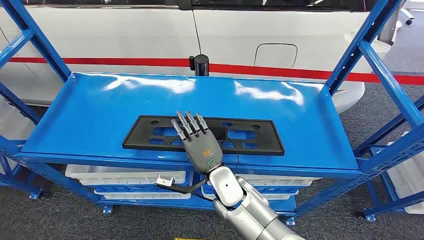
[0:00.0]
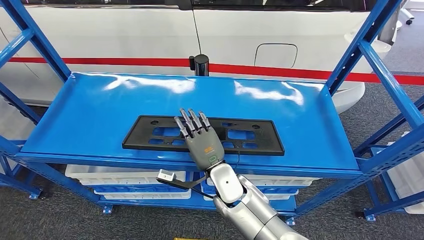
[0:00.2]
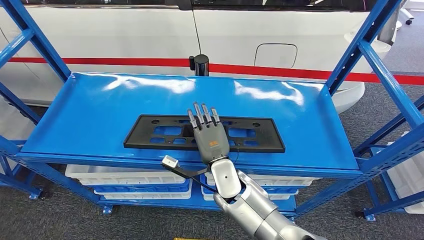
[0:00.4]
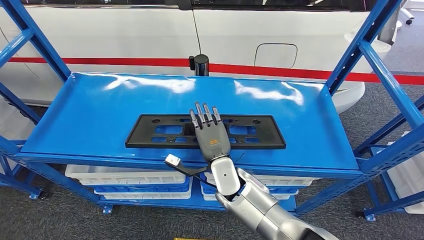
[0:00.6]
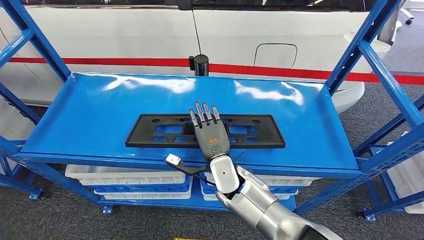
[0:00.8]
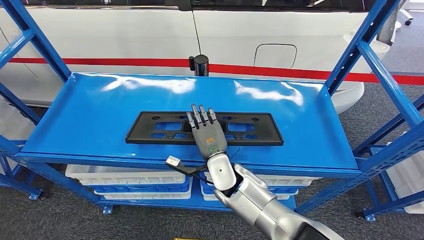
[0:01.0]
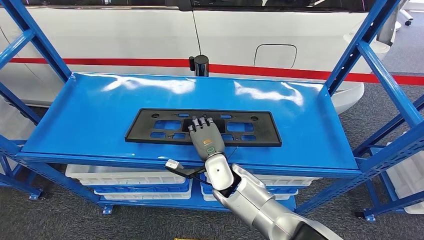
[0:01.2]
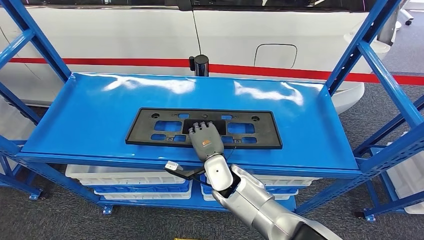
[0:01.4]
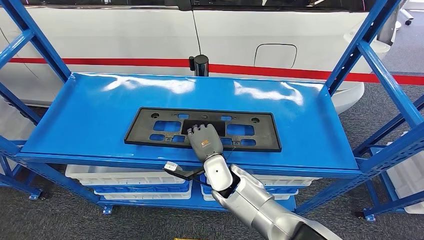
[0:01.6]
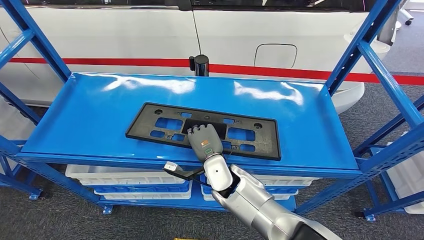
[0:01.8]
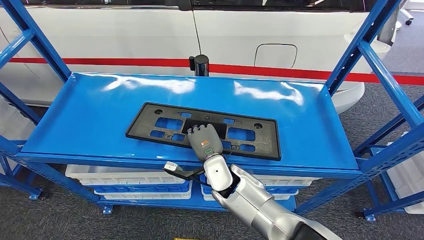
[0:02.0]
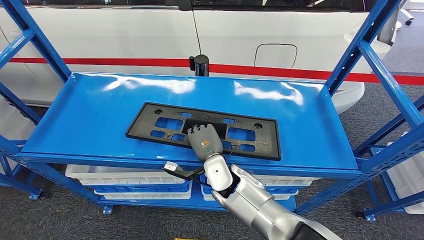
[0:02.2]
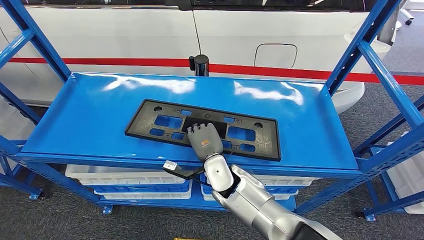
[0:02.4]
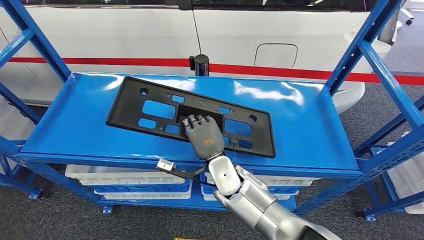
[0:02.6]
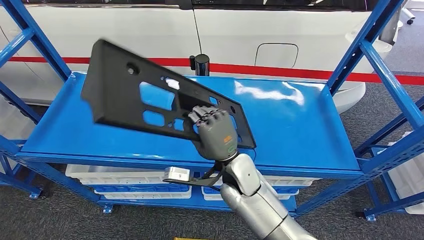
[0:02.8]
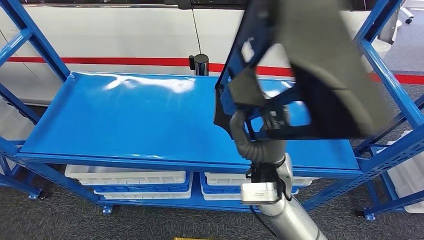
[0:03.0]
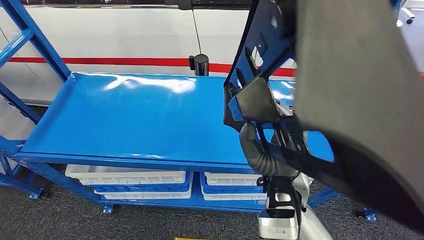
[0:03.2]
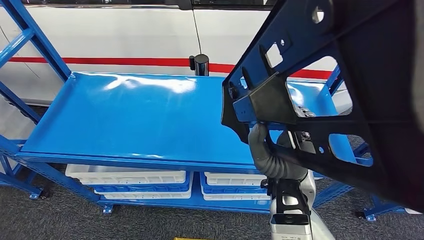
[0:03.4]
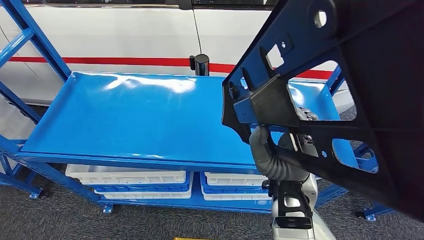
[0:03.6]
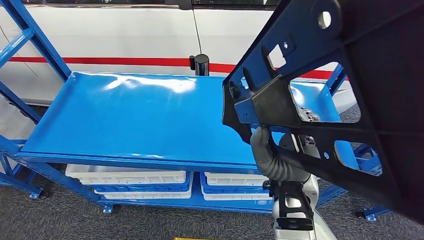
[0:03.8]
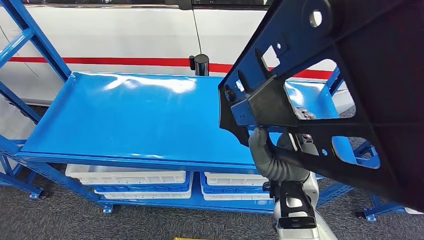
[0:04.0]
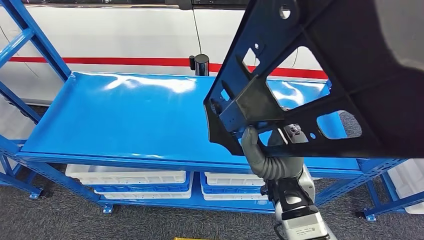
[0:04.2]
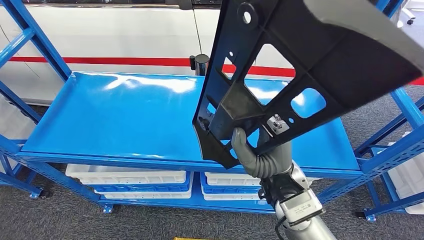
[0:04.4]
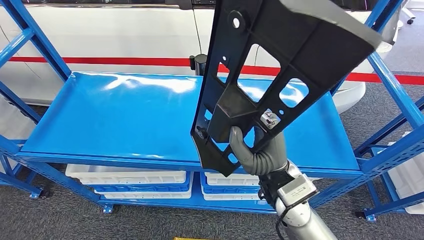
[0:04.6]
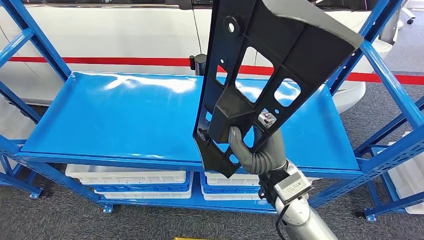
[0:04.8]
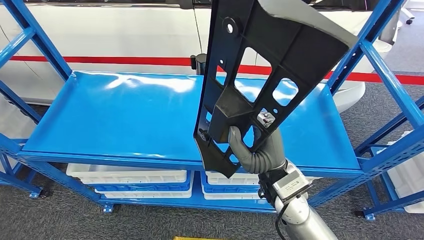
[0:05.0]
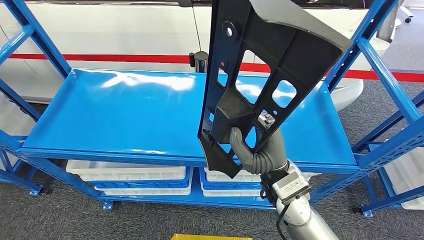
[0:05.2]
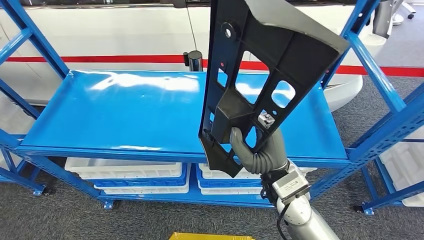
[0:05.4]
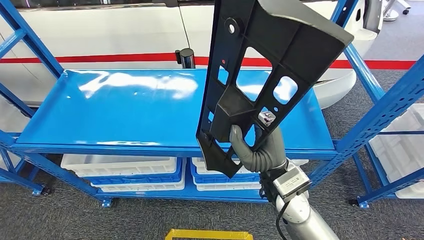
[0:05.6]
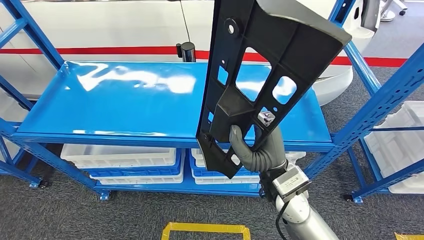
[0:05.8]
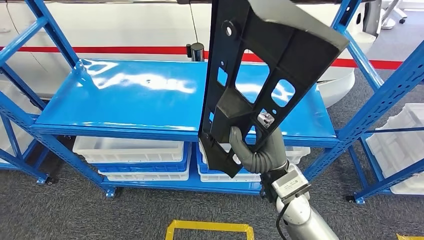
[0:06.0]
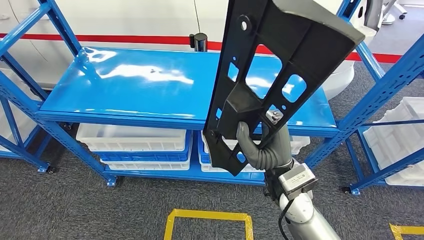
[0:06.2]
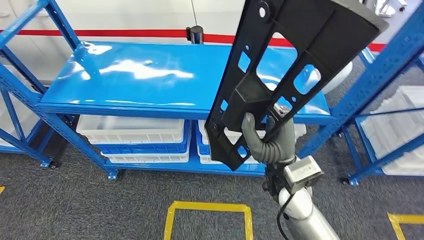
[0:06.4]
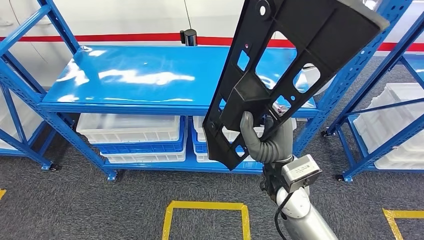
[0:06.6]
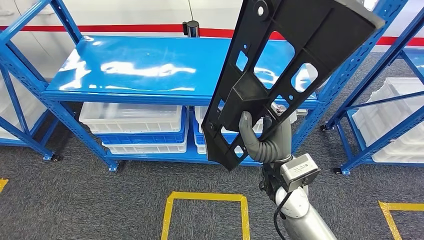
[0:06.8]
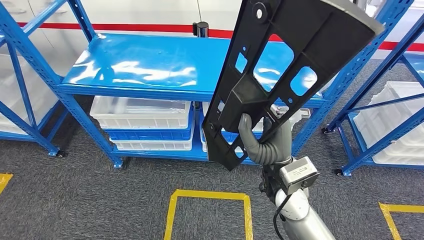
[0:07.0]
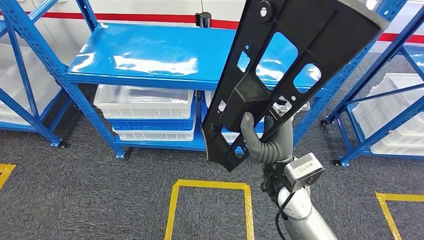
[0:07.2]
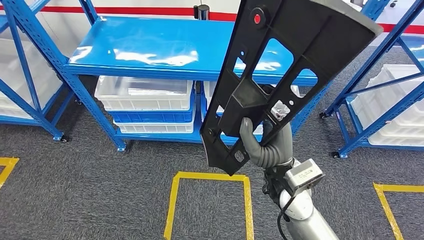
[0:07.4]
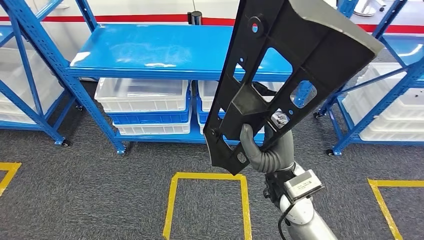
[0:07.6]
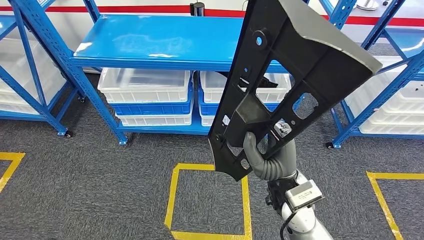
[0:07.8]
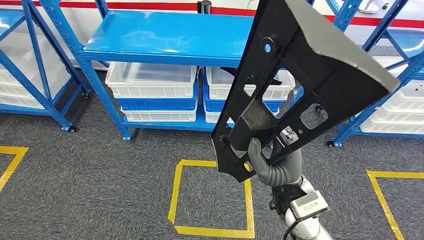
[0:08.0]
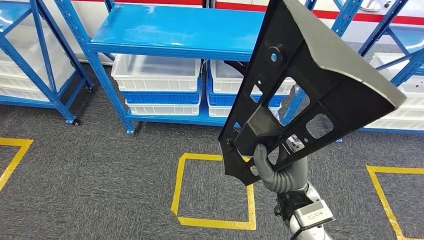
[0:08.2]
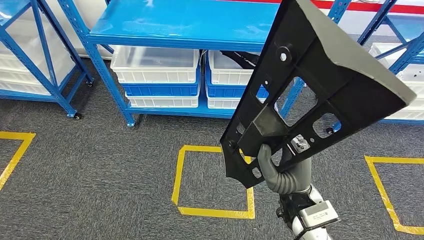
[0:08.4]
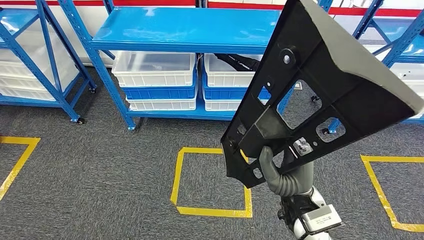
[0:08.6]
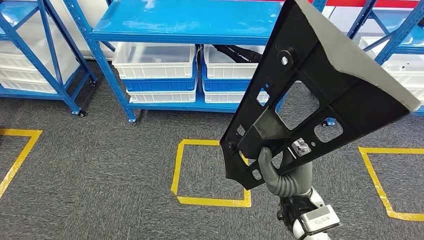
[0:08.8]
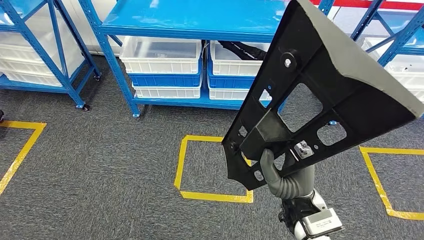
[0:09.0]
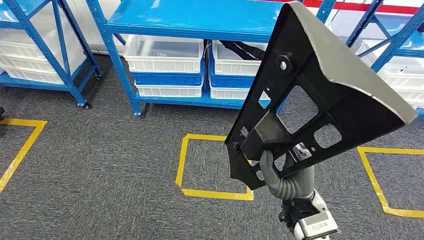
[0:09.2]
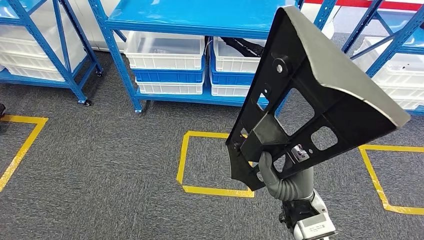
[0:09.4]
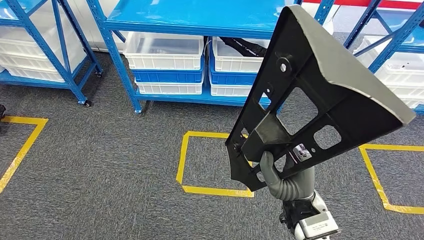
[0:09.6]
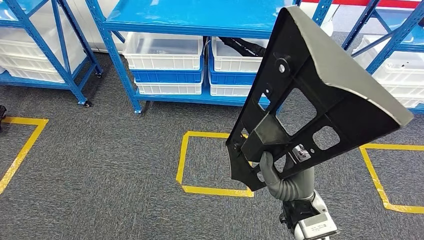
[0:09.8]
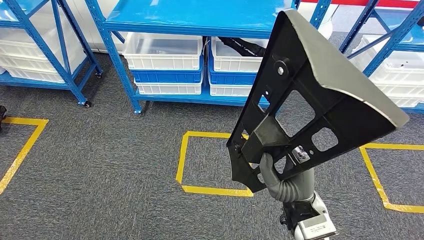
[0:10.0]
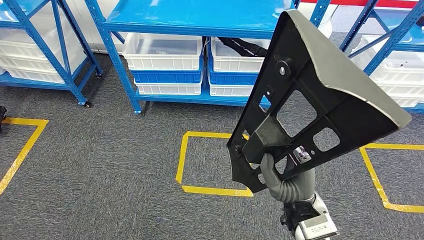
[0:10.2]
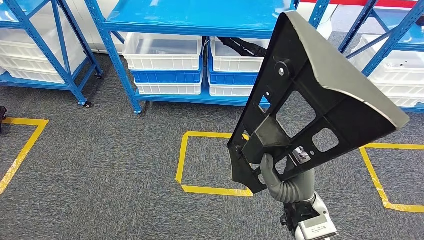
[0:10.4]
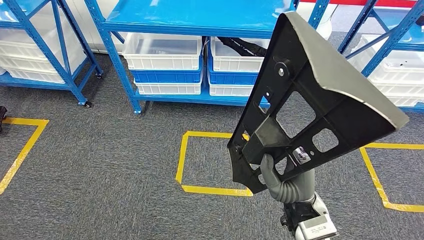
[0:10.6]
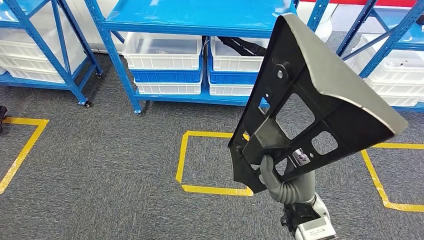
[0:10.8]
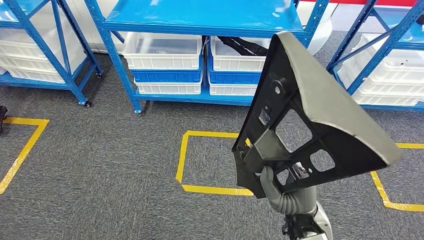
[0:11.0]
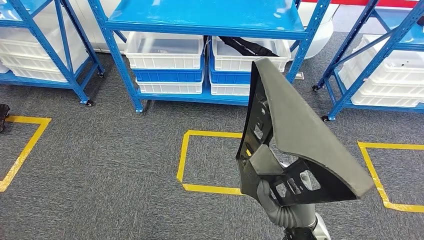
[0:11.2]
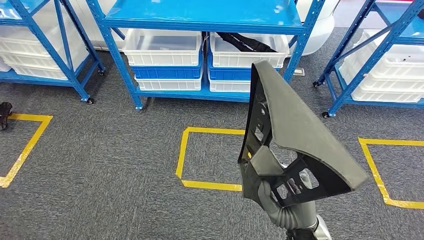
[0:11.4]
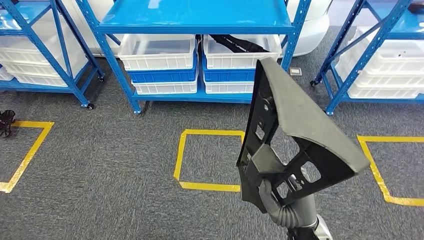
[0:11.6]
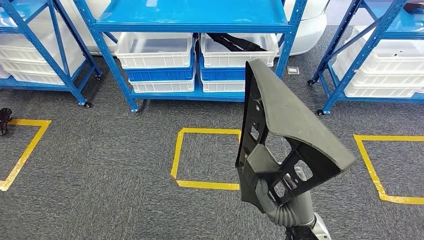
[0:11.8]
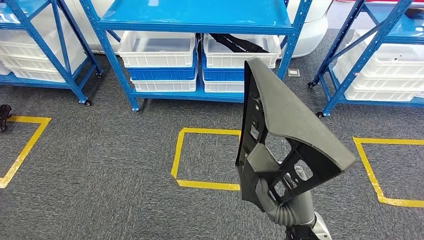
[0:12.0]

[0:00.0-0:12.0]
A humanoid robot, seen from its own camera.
Step, 0:00.0 to 0:08.4: Pick up the large material from the shelf.

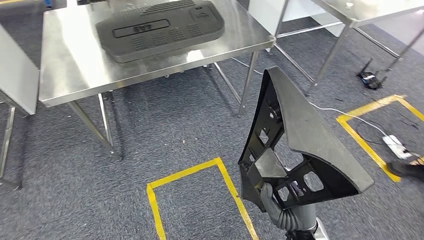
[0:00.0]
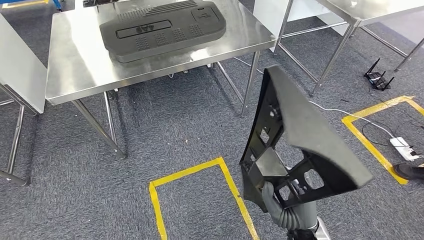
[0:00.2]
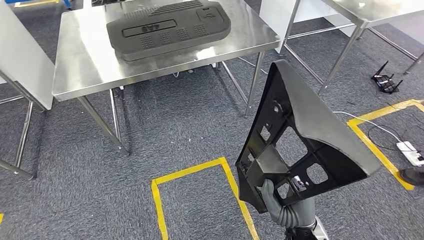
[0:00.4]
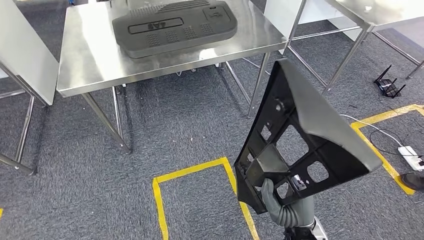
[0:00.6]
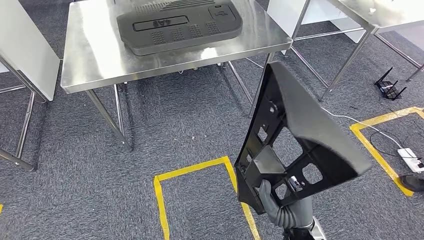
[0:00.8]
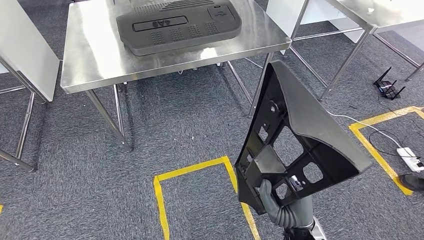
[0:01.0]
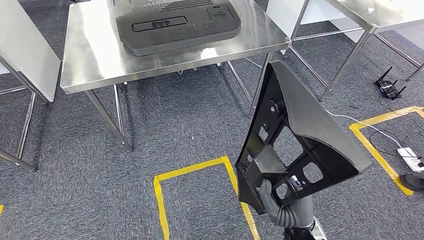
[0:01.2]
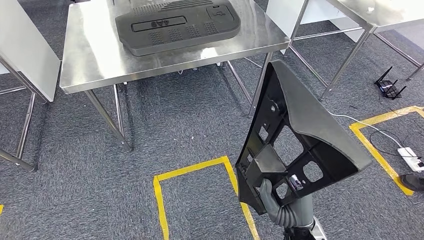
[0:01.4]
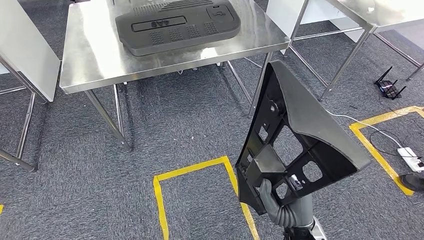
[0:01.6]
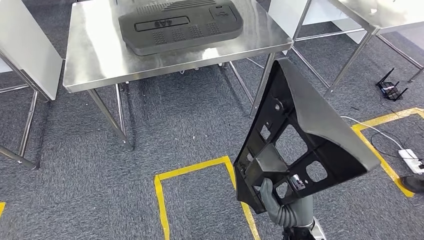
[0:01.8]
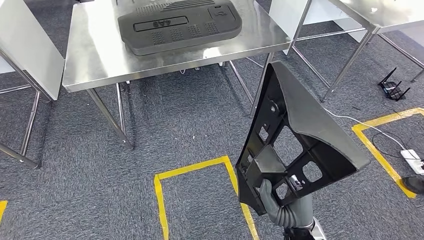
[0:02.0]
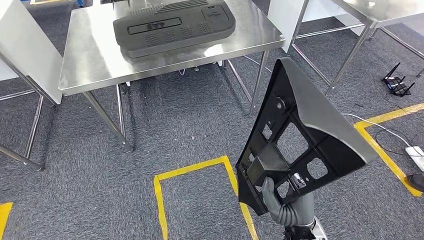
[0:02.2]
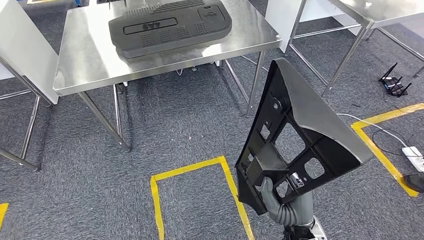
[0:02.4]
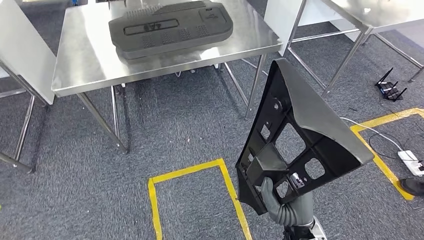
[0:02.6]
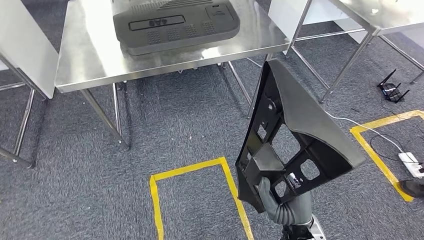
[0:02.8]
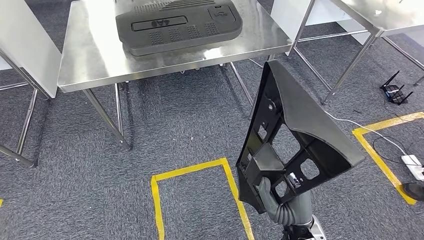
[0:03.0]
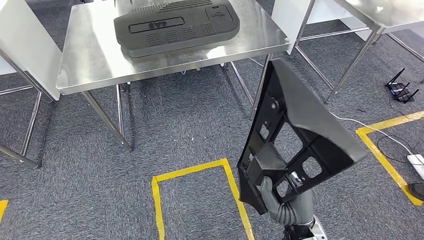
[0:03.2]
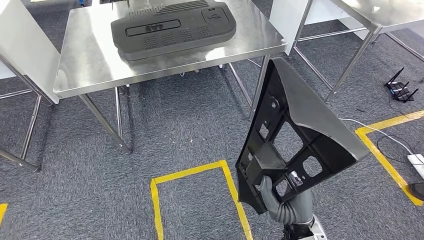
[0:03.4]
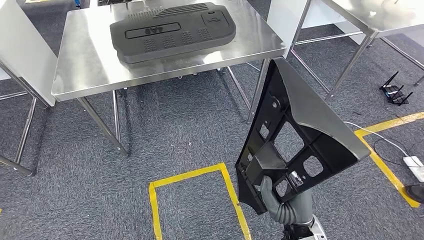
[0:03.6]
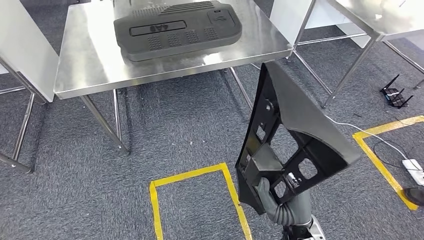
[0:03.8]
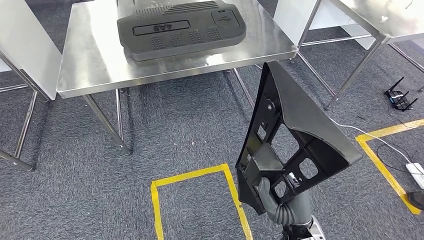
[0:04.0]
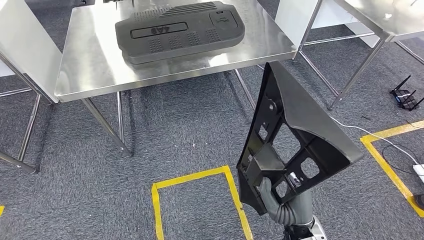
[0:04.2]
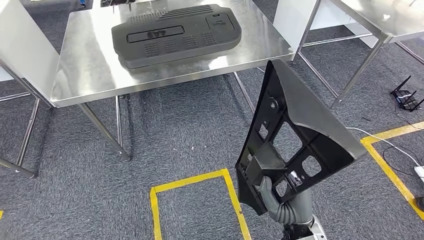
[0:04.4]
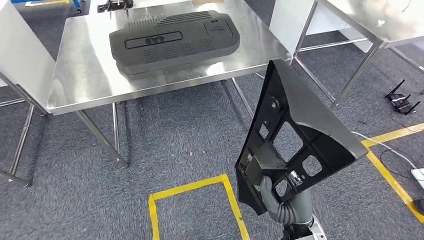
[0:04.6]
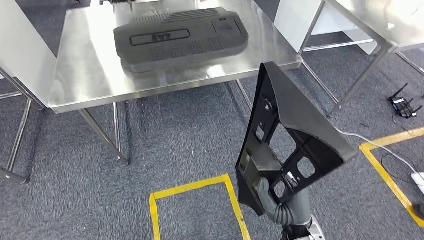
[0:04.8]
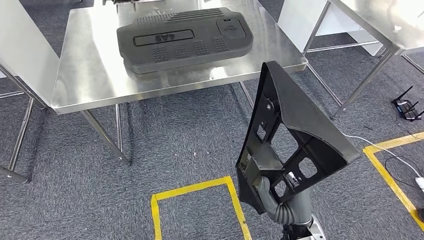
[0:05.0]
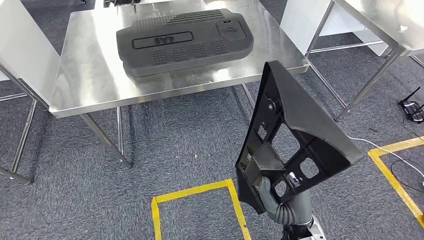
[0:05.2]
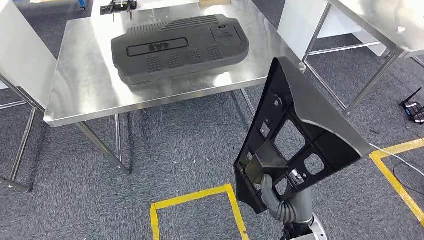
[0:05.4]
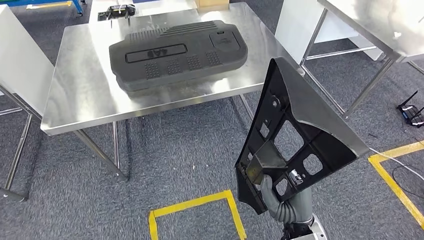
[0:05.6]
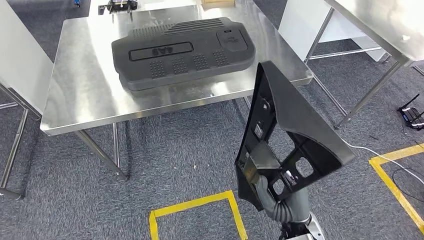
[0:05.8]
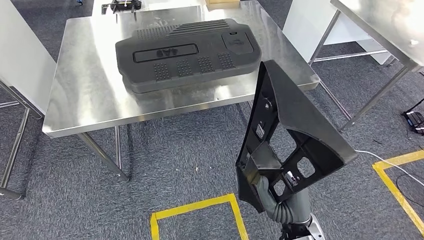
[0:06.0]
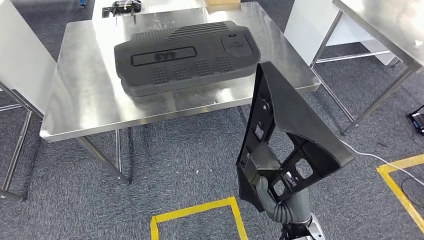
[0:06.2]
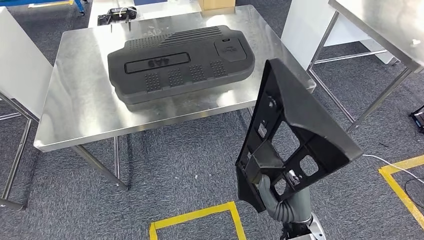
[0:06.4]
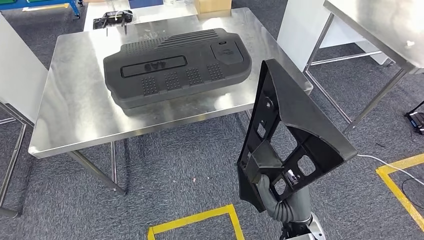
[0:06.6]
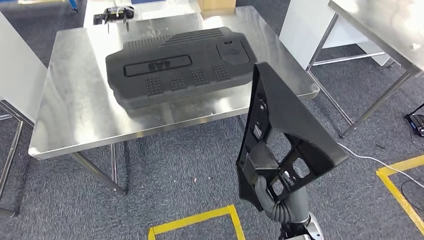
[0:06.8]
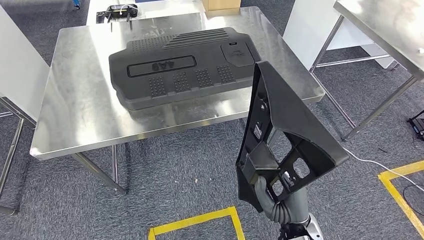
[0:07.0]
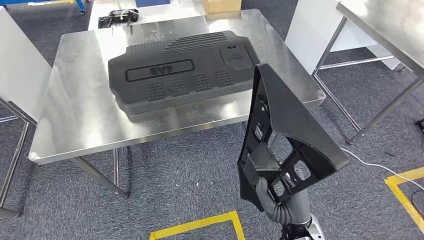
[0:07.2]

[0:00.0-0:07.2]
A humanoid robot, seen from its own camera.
0:01.4 to 0:02.8: Both hands stay about where they are.
